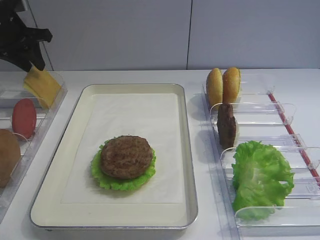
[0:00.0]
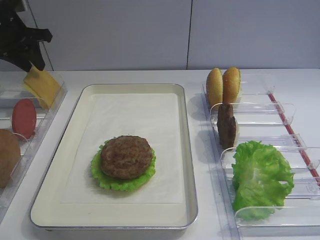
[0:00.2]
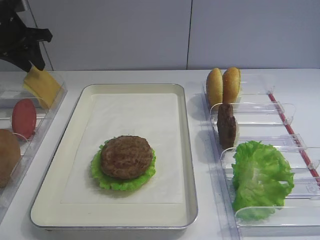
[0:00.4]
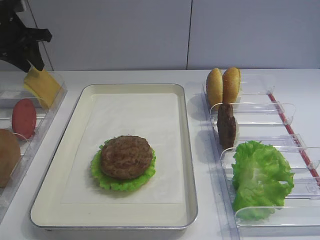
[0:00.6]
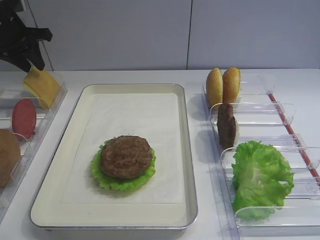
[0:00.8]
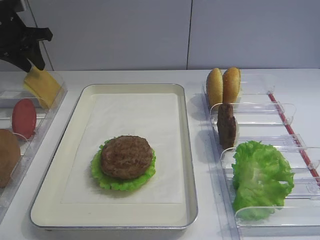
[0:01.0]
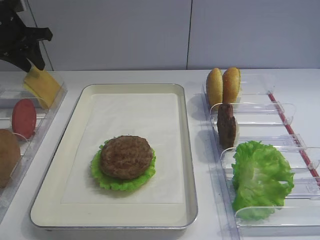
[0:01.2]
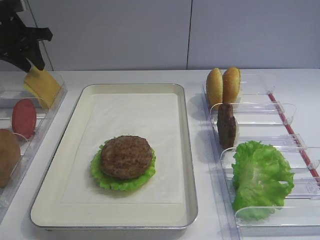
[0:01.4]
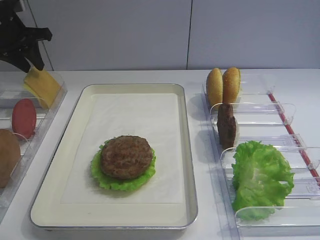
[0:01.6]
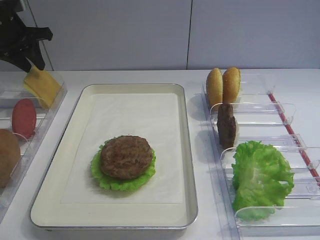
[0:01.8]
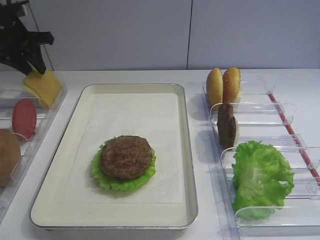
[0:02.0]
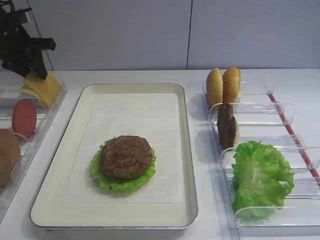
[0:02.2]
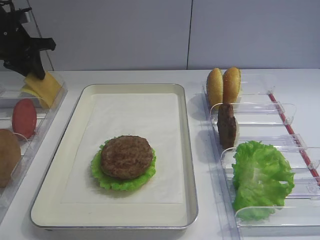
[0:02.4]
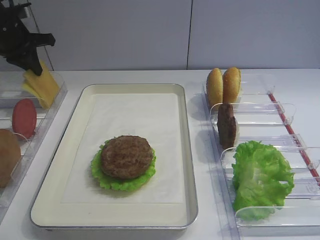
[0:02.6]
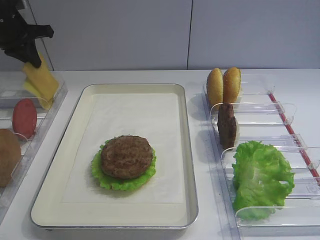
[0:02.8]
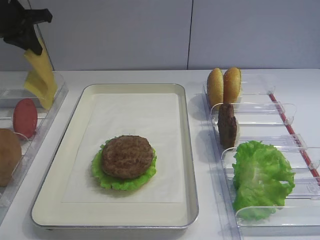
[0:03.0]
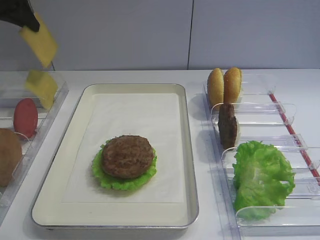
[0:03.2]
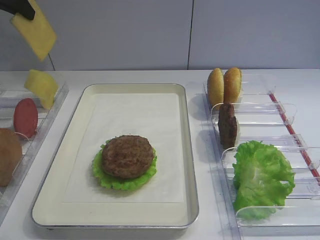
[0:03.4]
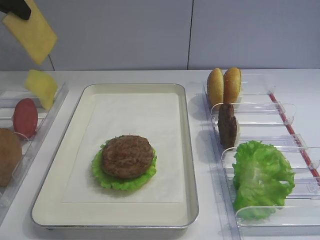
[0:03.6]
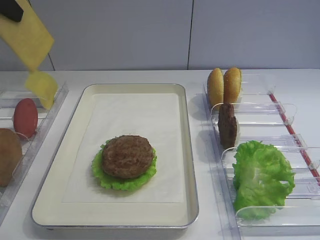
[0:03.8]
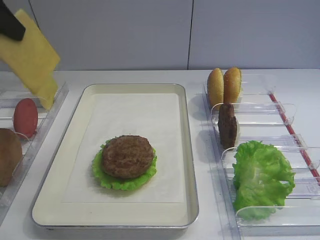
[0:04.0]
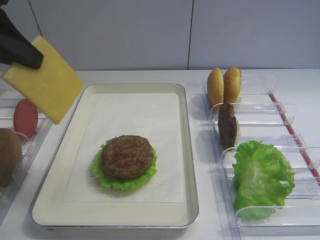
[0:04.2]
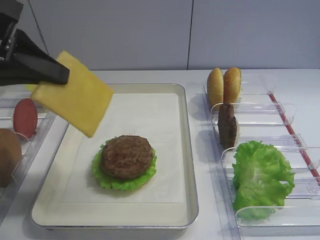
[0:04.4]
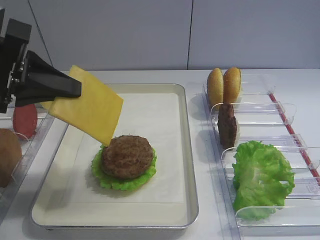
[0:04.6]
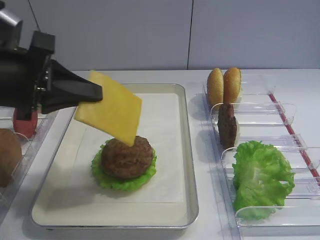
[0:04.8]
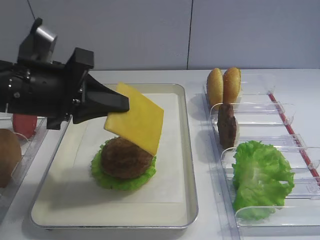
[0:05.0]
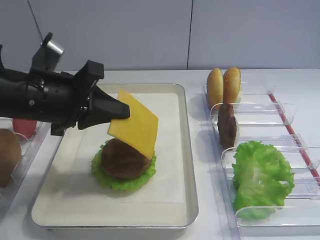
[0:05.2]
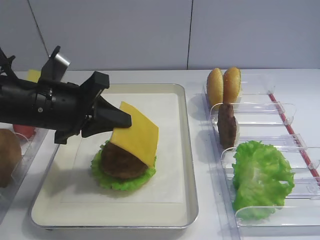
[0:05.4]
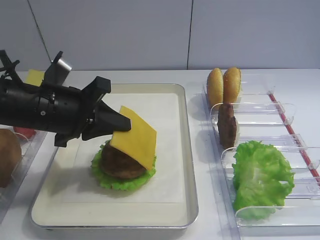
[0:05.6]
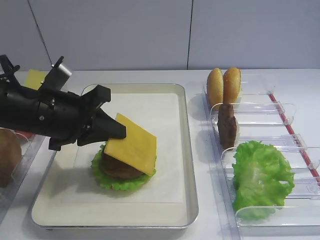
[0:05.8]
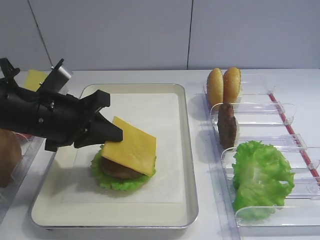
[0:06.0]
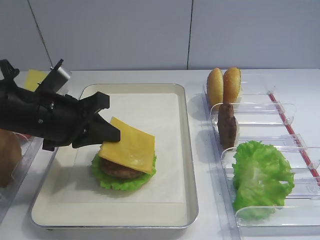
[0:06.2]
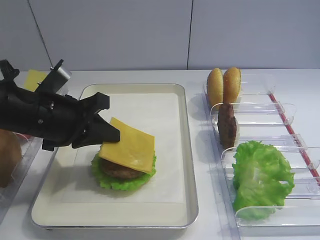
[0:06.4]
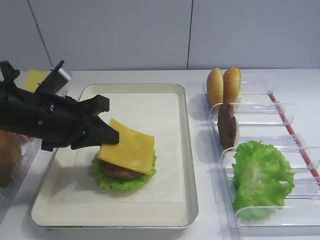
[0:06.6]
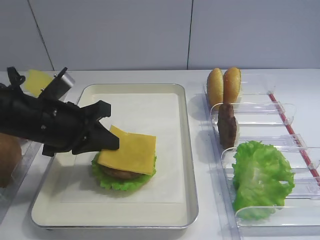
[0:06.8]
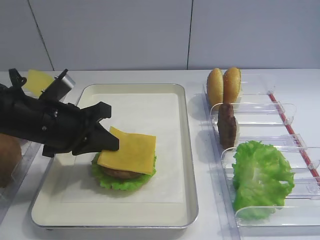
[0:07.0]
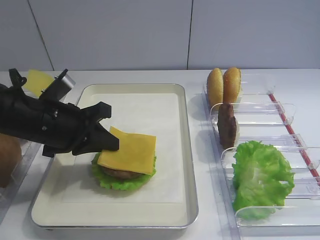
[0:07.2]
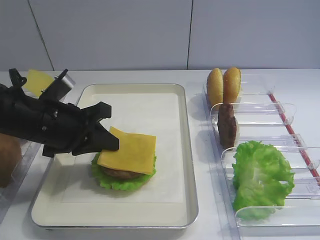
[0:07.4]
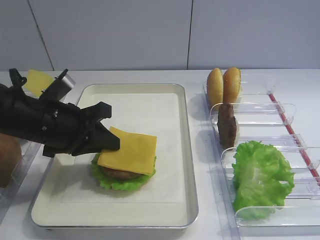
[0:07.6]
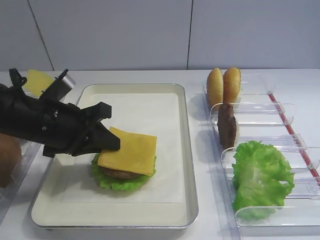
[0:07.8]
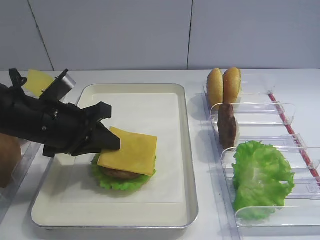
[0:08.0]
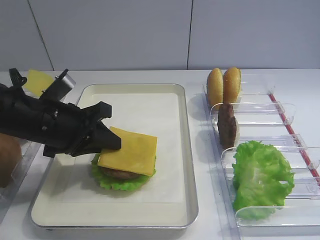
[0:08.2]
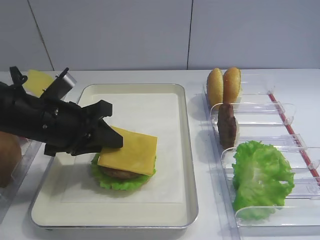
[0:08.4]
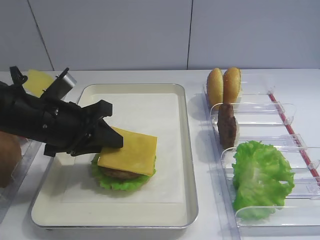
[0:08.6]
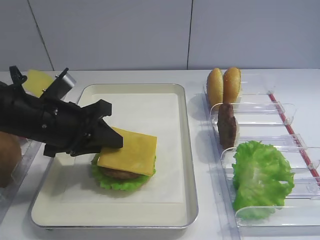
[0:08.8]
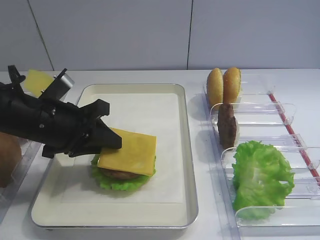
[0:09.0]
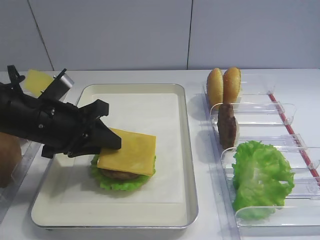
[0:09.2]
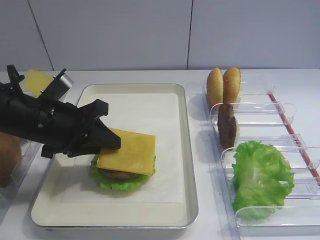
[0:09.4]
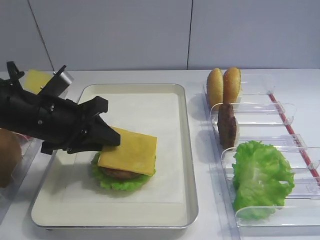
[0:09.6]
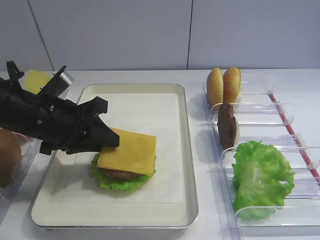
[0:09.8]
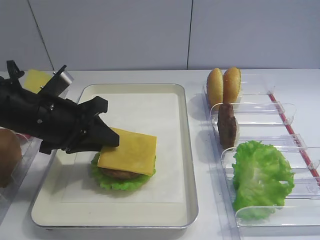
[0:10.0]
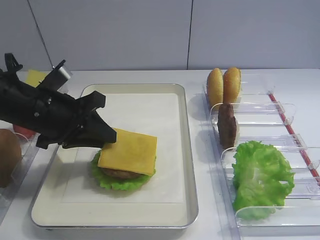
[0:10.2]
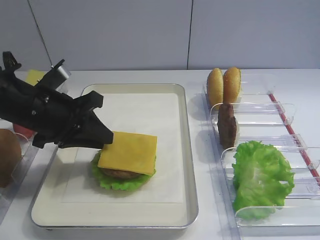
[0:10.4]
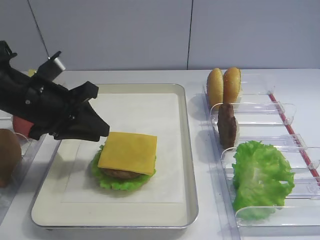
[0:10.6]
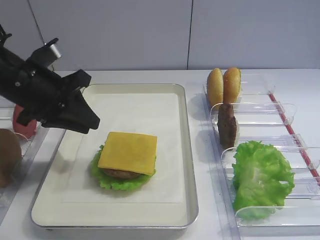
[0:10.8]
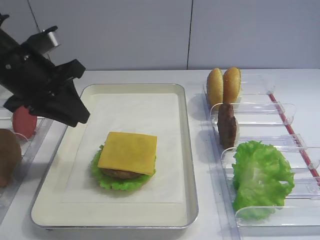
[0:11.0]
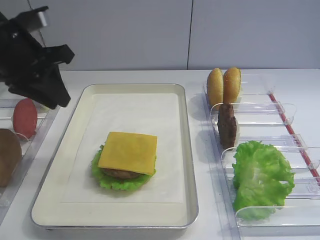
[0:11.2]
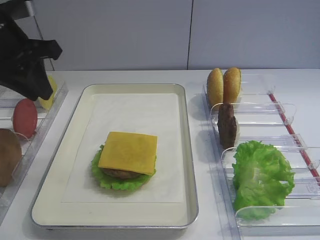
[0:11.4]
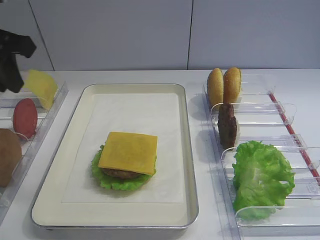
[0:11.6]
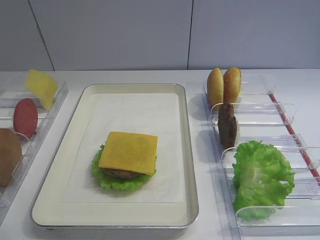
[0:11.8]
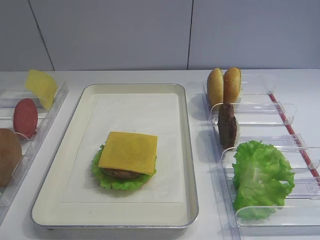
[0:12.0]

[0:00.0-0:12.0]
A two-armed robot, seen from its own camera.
Step, 0:00.0 to 0:03.0: Pick up the cheese slice with the left gripper.
Step, 0:03.2 to 0:10.6: Place the cheese slice on the cutlet with the left gripper.
0:00.0 to 0:01.6: Both grippers stay about where they are.
0:01.6 to 0:03.0: The left gripper closes.
0:03.0 to 0:04.4: The left gripper is displaced backward by some 25 cm.
0:04.4 to 0:06.0: The left gripper moves downward and to the right, some 15 cm.
0:06.0 to 0:07.6: The grippers make only small movements.
0:07.6 to 0:09.0: The left gripper opens its fingers.
0:09.0 to 0:10.4: The grippers make only small movements.
0:10.4 to 0:12.0: The left gripper shifts approximately 20 cm upward, backward and to the left.

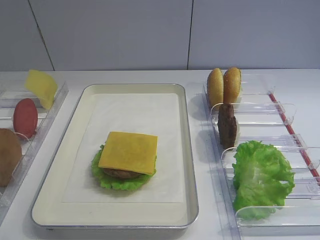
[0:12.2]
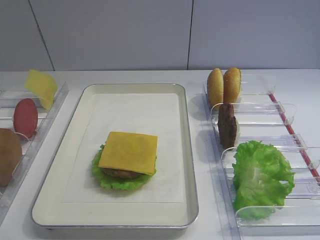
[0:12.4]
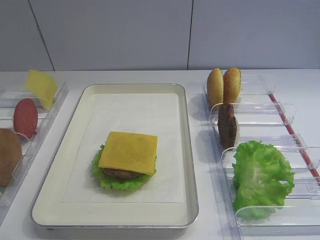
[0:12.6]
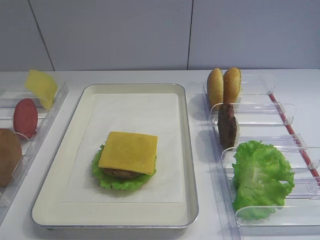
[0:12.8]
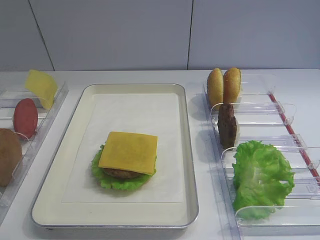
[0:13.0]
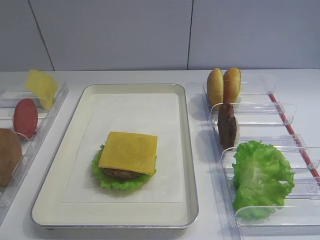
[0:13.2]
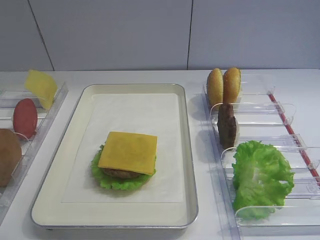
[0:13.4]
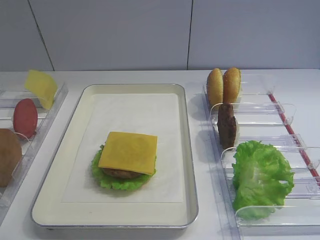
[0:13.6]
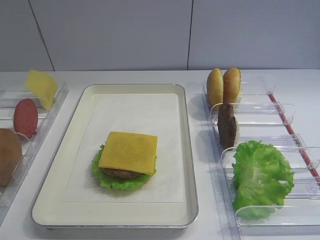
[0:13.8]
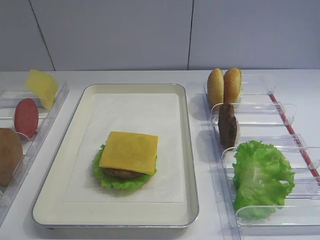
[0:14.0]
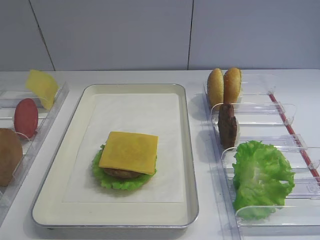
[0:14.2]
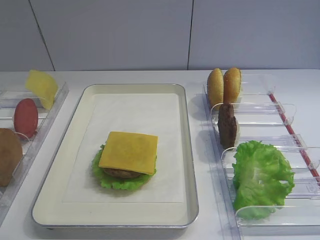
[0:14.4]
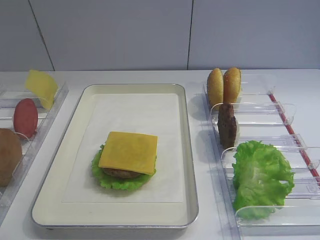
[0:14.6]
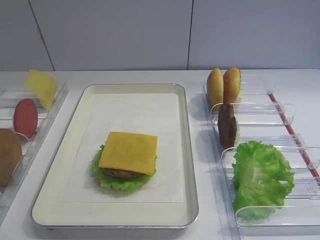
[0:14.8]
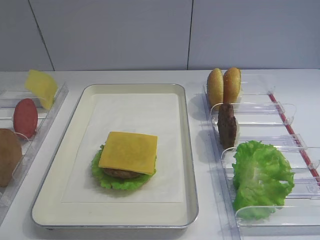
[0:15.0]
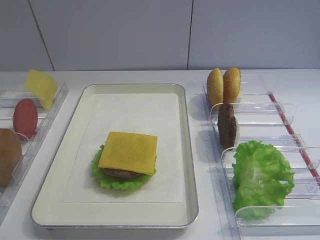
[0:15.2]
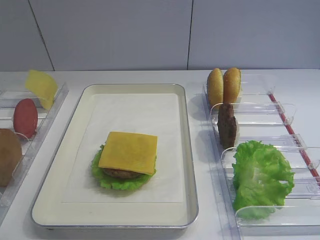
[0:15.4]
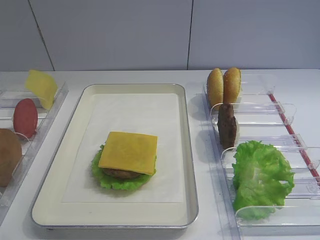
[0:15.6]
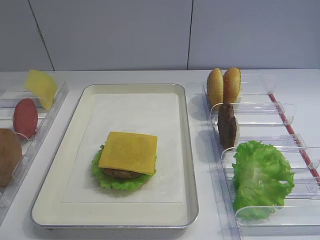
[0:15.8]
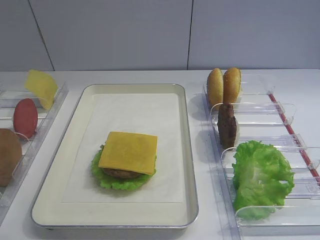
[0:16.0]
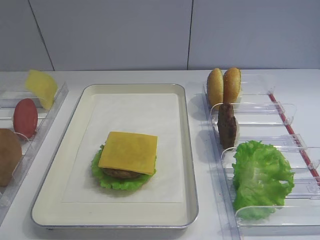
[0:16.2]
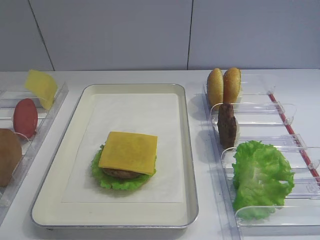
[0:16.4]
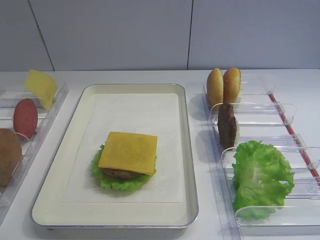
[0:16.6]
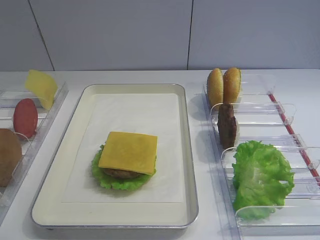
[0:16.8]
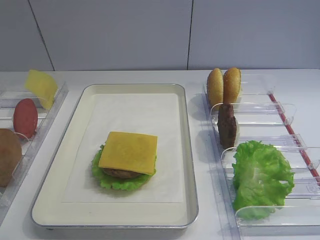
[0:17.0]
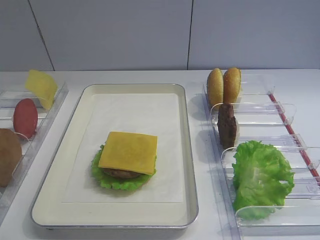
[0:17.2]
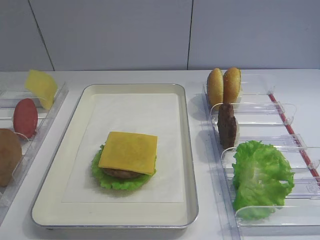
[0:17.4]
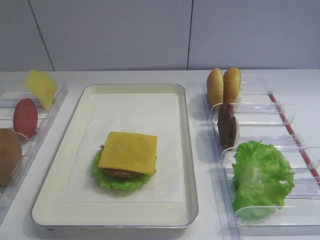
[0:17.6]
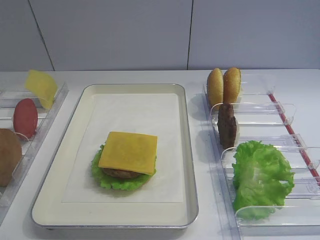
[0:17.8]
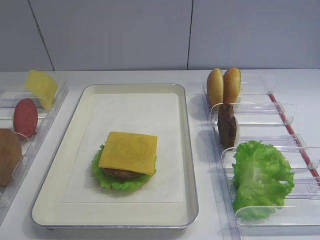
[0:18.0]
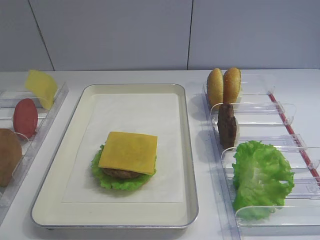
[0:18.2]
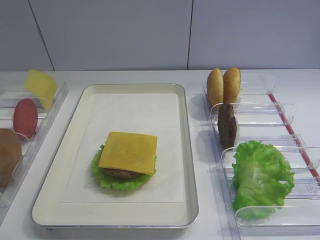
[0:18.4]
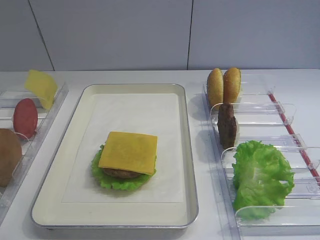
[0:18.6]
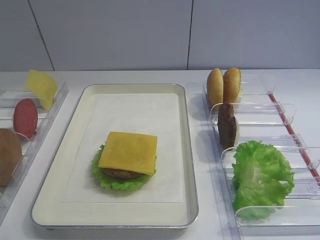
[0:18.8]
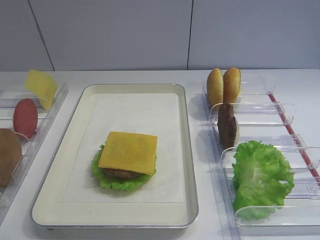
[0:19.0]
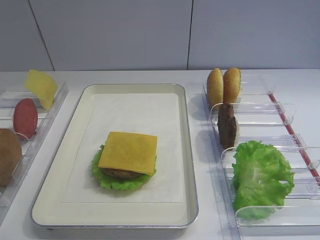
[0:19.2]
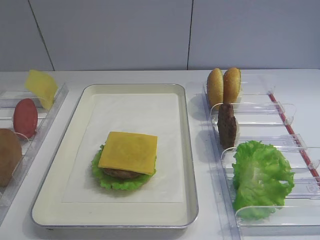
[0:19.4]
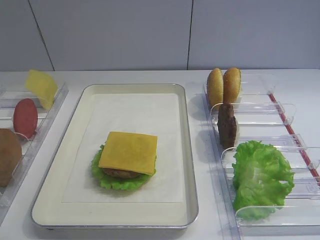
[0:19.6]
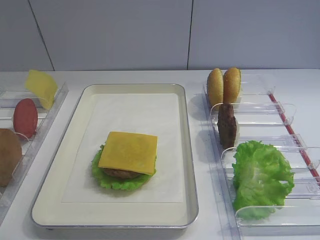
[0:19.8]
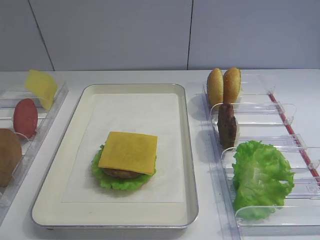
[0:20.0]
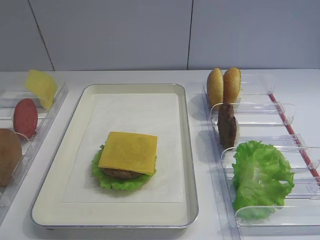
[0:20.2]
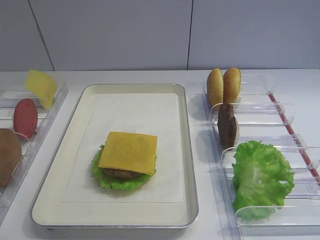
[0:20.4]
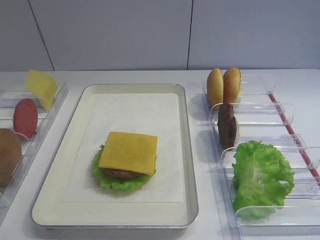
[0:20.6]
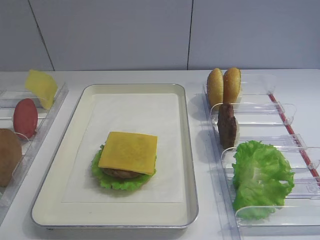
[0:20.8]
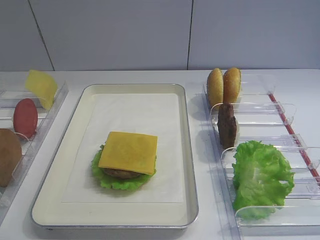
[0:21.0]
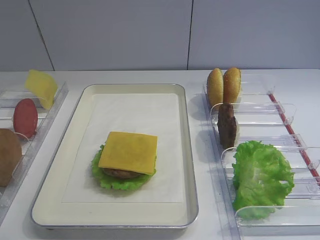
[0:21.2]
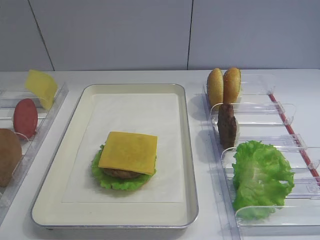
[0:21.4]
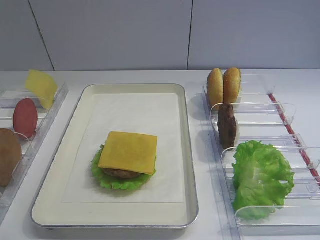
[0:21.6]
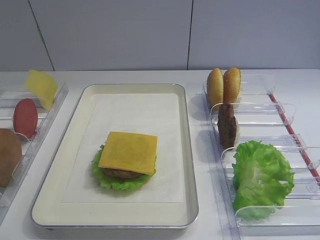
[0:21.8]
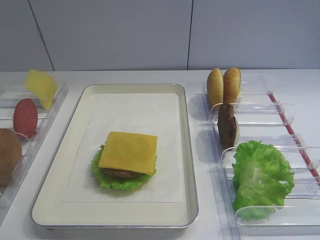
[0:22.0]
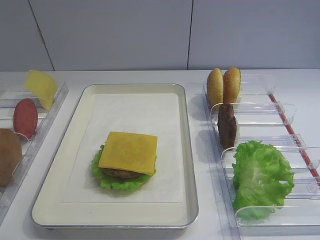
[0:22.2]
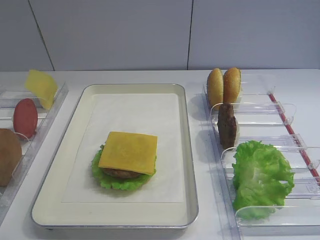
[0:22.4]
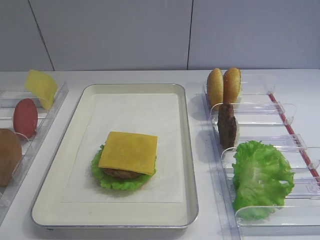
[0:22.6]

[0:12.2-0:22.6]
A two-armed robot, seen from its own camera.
0:15.2 to 0:22.6: Neither gripper changes place.
